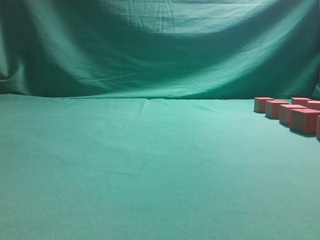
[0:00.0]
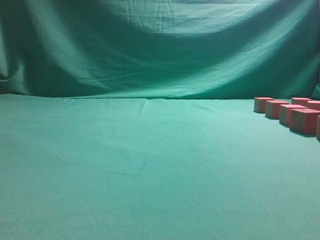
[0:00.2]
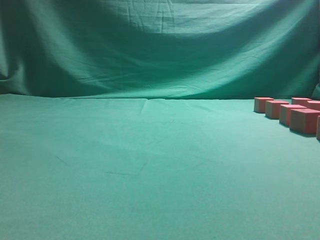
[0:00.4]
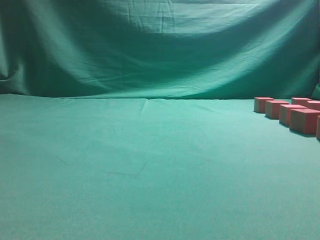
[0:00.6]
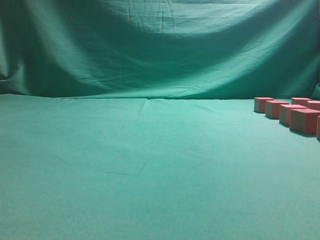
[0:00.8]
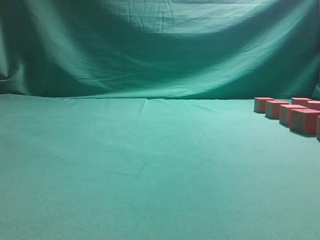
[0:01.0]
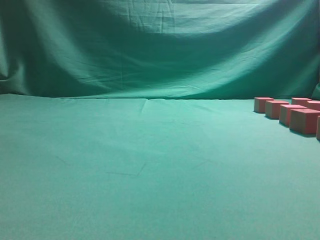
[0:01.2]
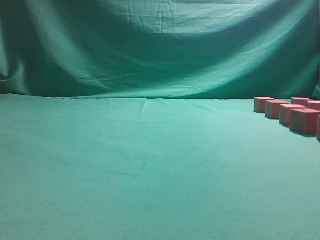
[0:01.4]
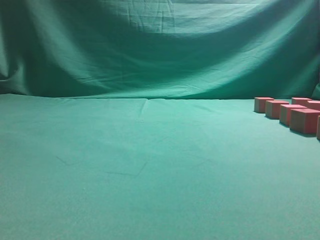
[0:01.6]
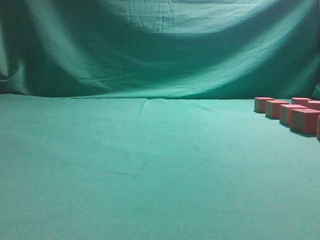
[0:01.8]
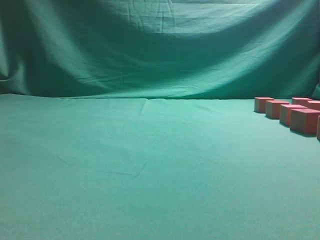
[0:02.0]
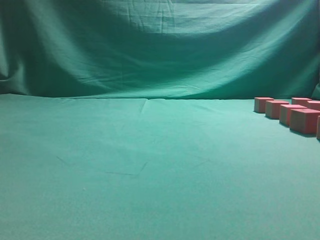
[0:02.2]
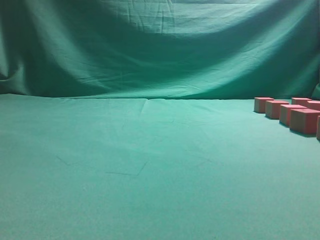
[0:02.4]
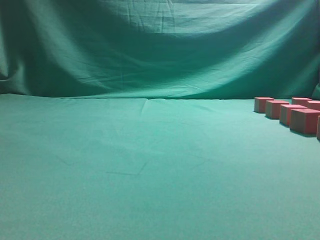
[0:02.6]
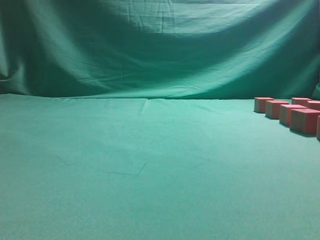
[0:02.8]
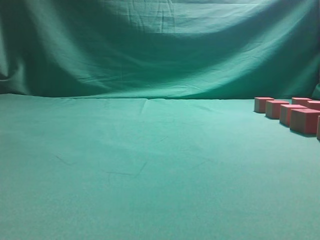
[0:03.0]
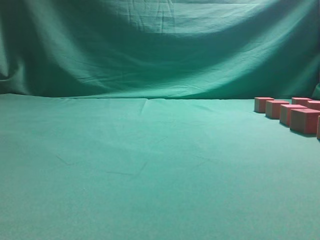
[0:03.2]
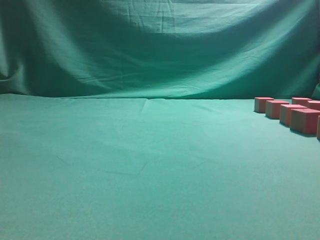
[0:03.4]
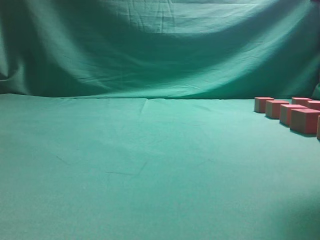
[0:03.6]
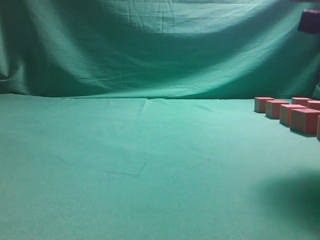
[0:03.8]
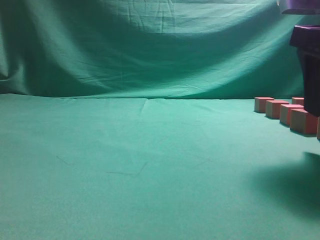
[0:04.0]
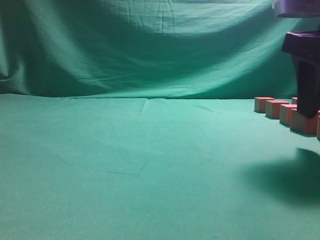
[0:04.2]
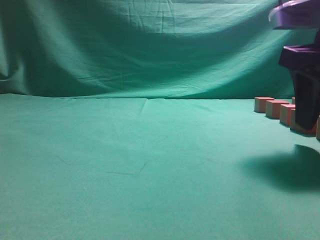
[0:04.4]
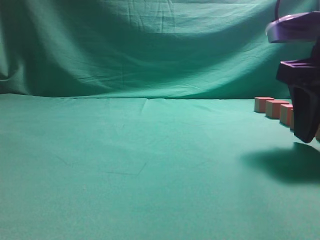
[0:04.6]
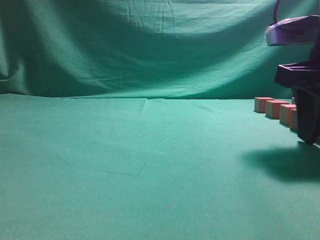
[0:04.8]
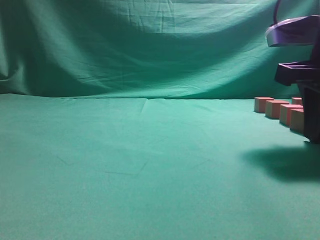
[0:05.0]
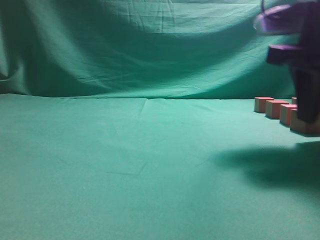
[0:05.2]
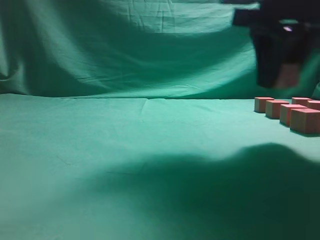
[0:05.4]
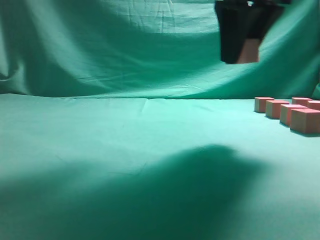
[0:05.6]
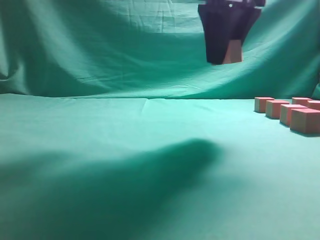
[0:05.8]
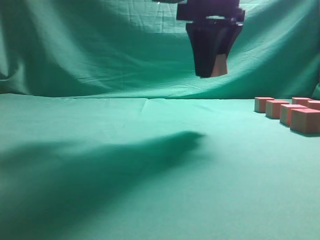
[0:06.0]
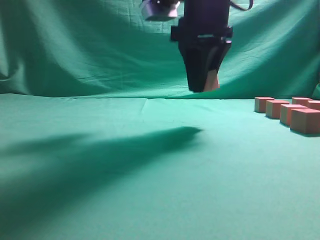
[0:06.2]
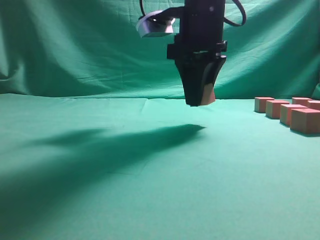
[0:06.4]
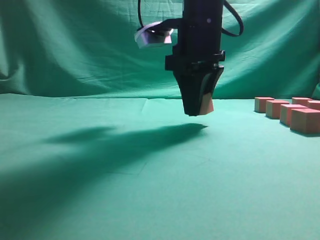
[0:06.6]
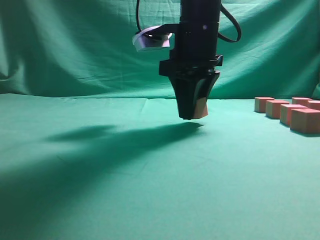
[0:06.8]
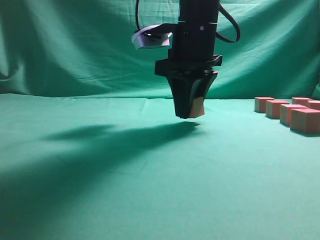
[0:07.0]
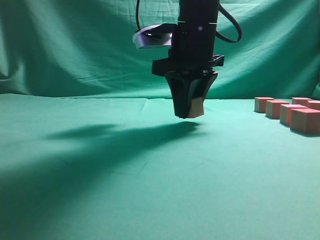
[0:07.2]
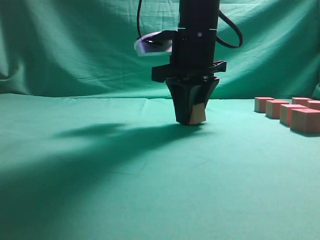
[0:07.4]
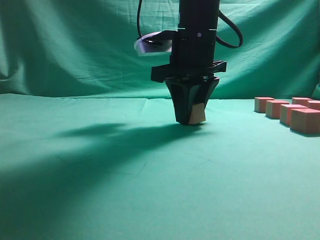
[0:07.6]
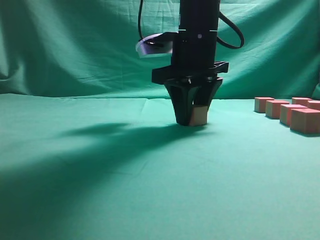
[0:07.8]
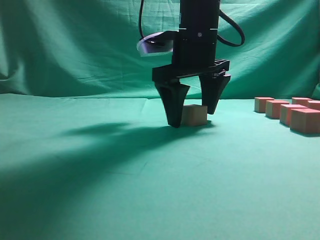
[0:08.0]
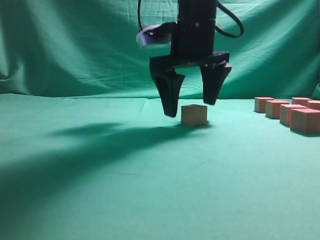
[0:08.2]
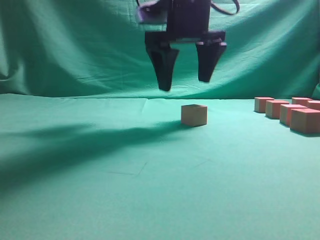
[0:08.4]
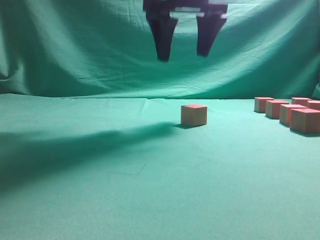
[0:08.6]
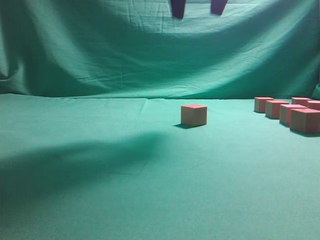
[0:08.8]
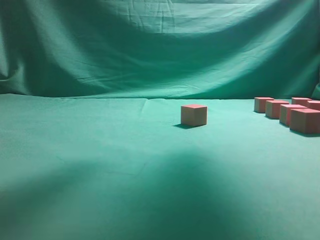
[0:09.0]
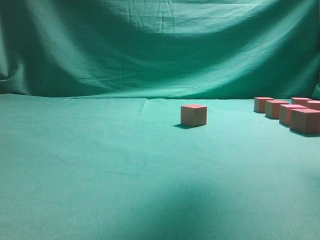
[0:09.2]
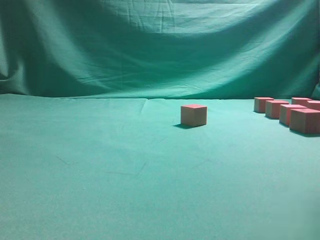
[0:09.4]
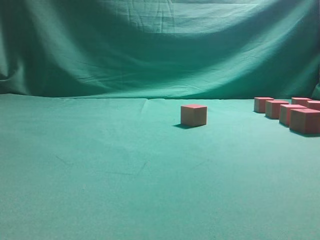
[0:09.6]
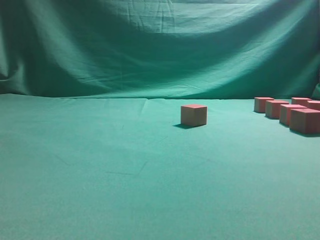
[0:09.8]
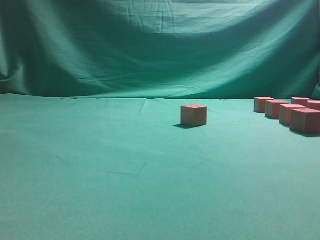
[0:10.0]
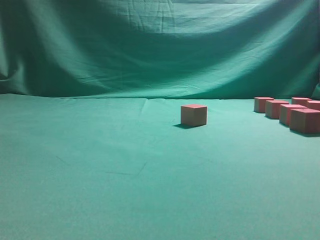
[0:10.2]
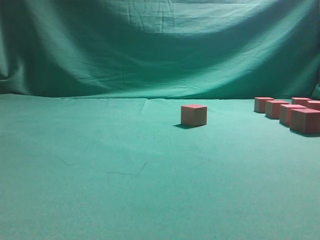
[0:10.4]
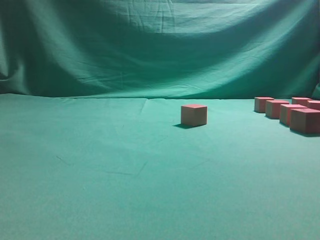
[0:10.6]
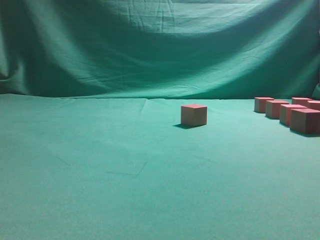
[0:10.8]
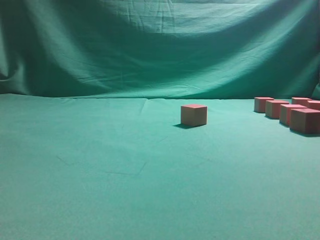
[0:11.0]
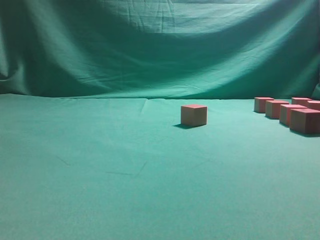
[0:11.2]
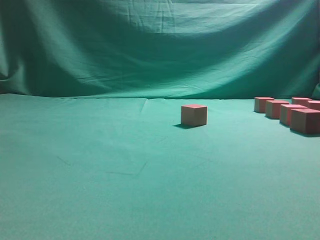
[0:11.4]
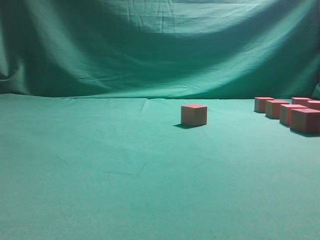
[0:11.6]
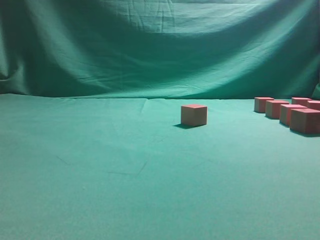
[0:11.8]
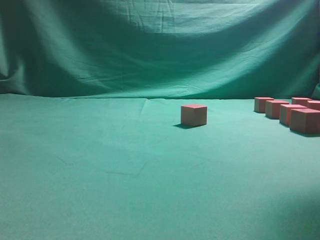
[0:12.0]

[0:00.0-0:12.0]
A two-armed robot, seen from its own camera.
Task of the whole recording: pick up the multiple cubes in two columns one by one and place them in another position on the table.
Step, 0.0 to 5.2 s: Pick up the block on the table.
Step, 5.4 to 8.6 s: Place the block at the correct position to assemble the letter S.
3.0 to 4.4 s: The right gripper heads forward and downward, covering some 15 cm, and opens its fingers.
4.4 to 6.0 s: The right gripper goes approximately 15 cm to the left, forward and upward.
6.0 to 7.6 s: The right gripper is displaced downward by roughly 5 cm.
7.6 to 9.0 s: The right gripper goes roughly 20 cm upward, and opens its fingers.
9.0 to 10.4 s: The right gripper moves downward, to the right and backward, some 25 cm.
10.4 to 12.0 s: The right gripper heads upward, covering roughly 5 cm, and closes up.

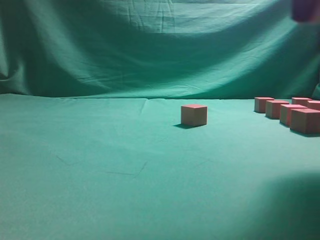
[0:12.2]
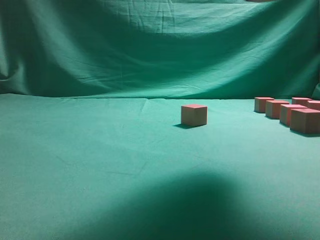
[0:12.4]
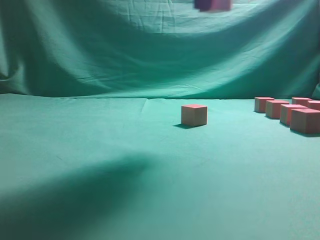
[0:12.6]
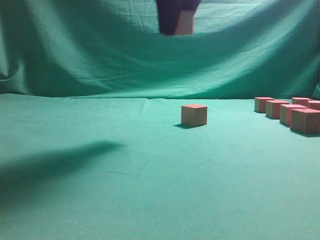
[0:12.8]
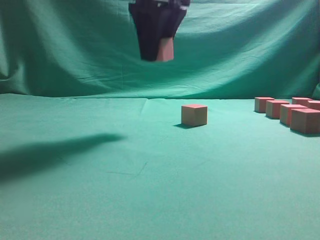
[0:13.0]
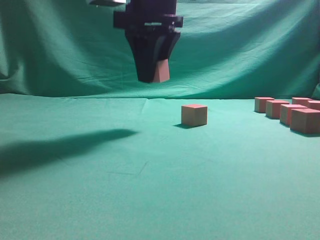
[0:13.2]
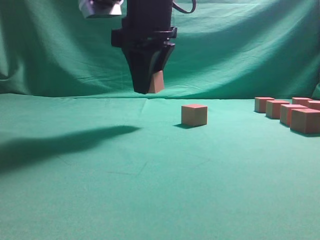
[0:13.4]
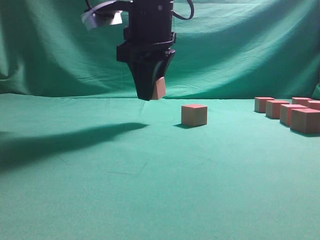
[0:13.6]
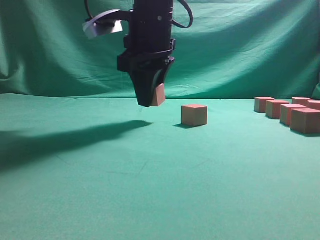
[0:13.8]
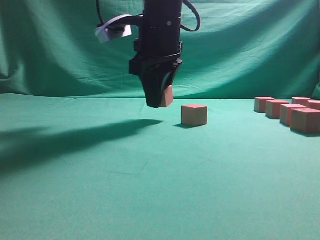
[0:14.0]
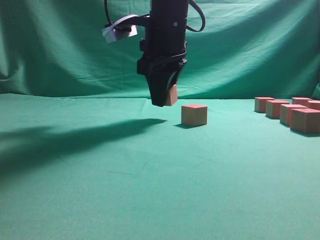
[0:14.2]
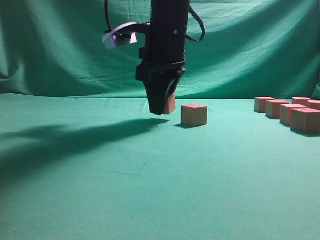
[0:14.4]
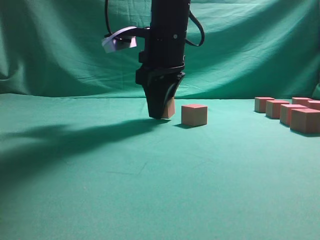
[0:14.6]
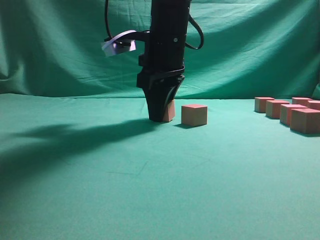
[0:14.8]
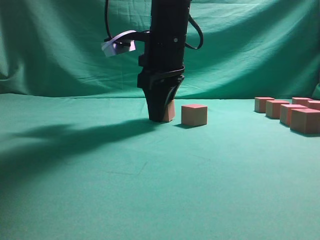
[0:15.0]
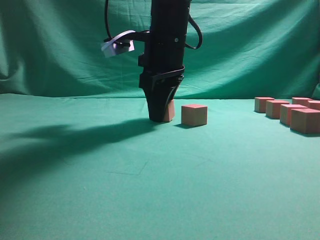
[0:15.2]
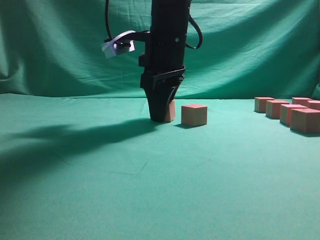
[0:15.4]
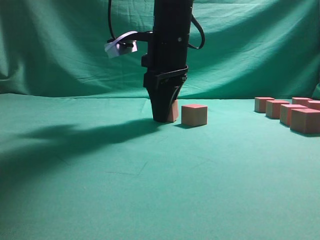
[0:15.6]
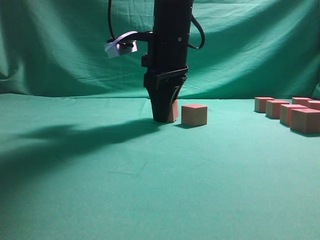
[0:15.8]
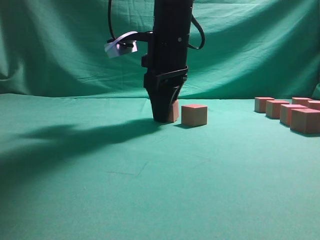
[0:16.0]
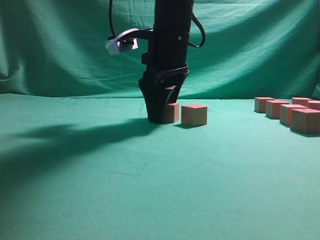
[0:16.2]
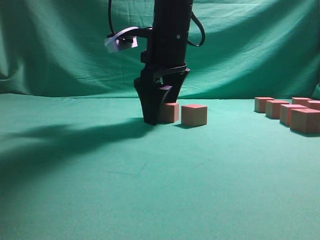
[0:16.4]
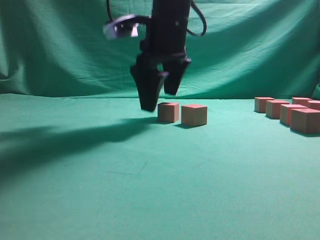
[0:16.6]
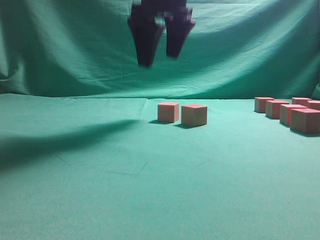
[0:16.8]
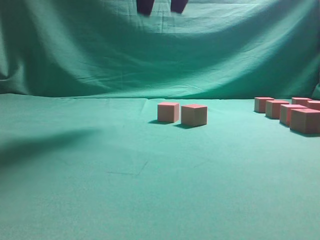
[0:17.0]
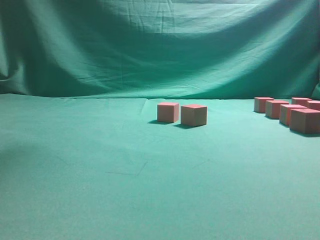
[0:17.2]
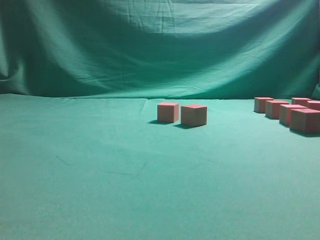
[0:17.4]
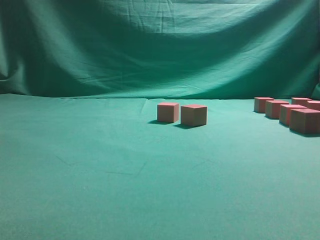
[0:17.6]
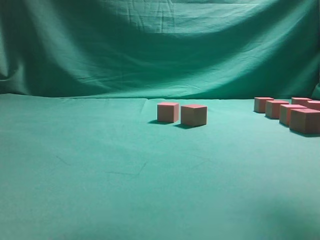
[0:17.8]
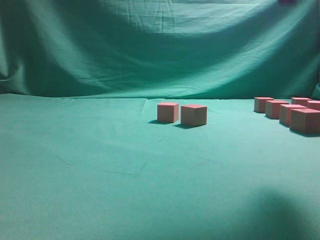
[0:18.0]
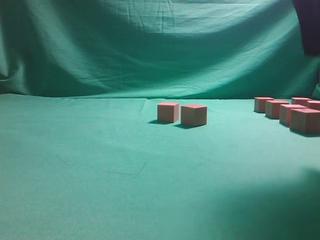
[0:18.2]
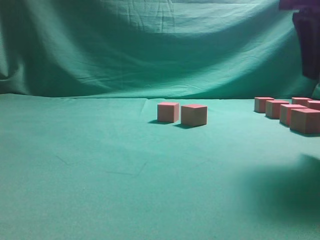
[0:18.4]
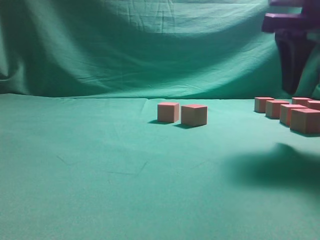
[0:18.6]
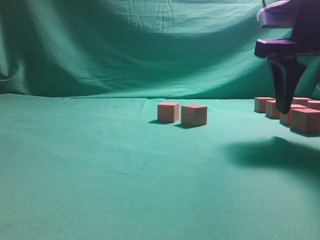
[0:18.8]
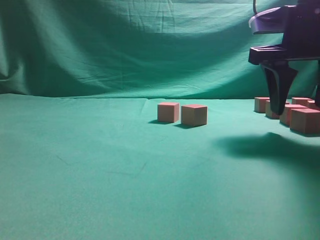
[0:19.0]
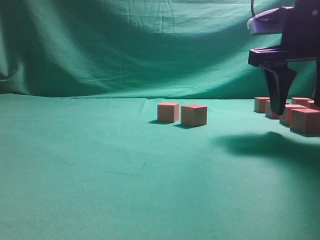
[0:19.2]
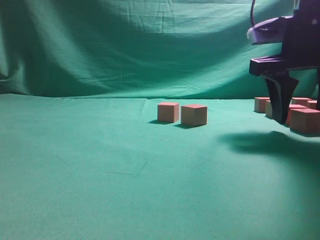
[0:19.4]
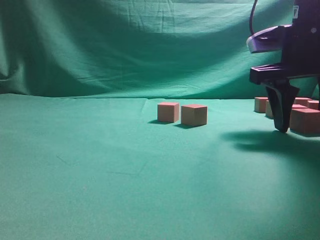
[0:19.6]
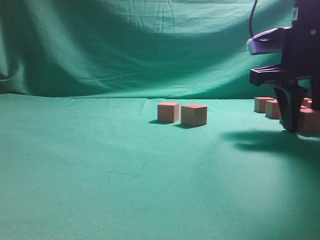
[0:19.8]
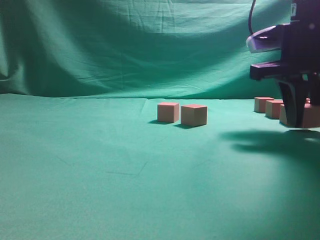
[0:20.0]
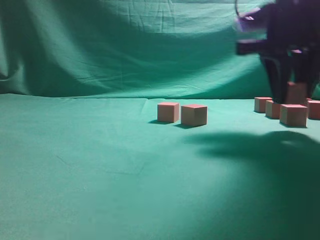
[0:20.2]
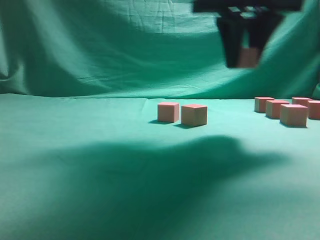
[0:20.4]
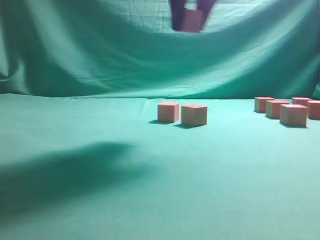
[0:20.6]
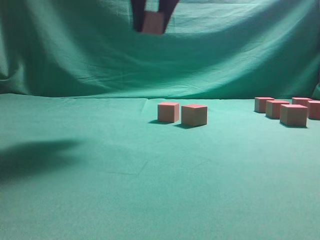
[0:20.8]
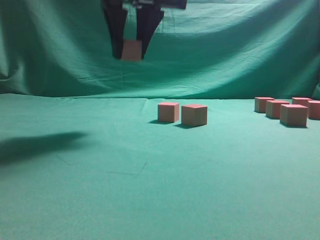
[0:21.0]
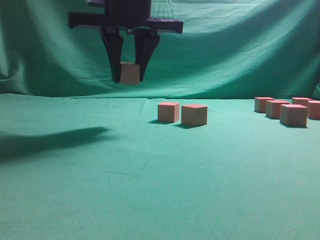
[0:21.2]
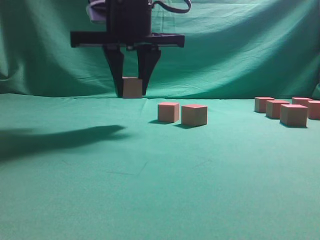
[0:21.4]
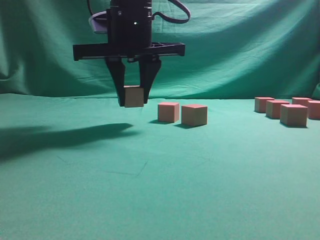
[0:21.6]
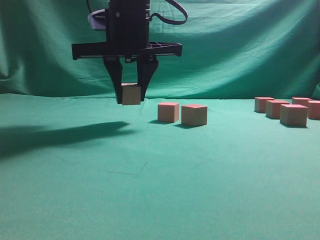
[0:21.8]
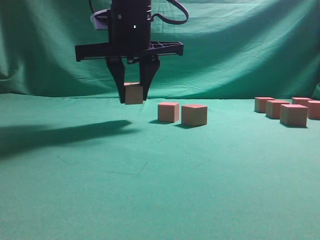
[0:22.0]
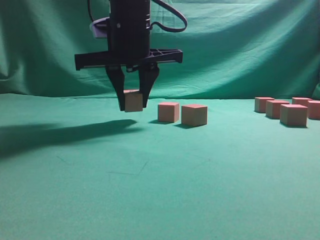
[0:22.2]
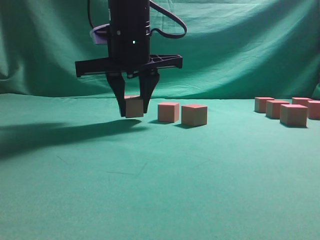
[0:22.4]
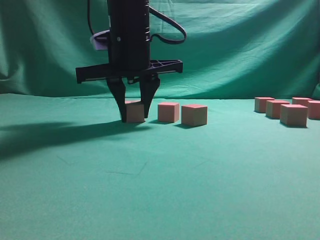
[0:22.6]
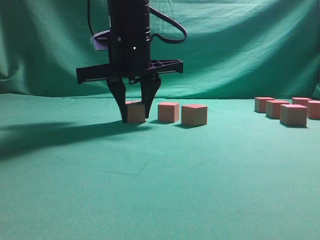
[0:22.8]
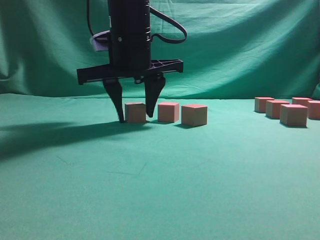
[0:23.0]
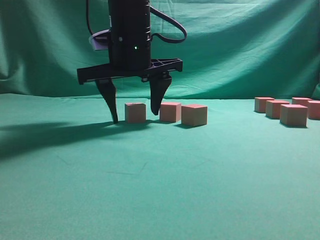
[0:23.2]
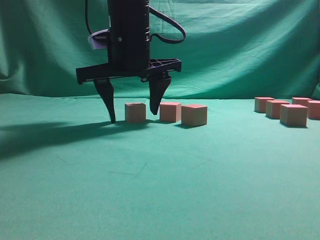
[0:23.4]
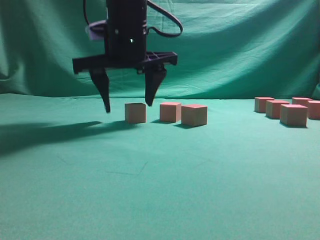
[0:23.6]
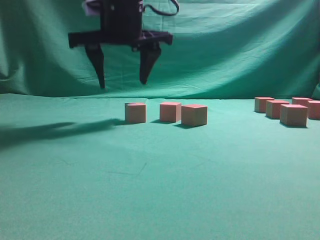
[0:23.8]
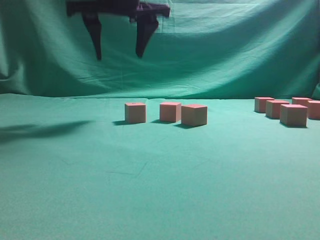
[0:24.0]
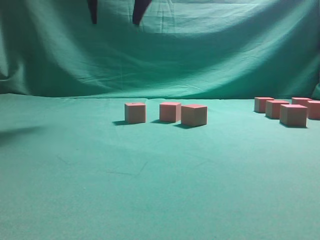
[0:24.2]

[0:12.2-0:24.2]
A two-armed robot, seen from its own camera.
Task of the whole recording: pick up the multiple cubes in two columns one by one and place them in another position on the table.
Step, 12.2 to 16.8 s: Place the block at the correct position to assemble the letter S.
Step, 17.2 to 20.0 s: Pick up the block on the table.
Step, 20.4 to 24.2 s: Place the block at the correct position to assemble the letter S.
12.2 to 13.8 s: The right gripper shifts approximately 25 cm to the left, forward and downward.
13.8 to 15.2 s: The grippers move only a little.
15.2 to 16.6 s: The right gripper opens its fingers.
16.6 to 18.2 s: The right gripper heads to the right and backward, covering roughly 25 cm, and travels upward and back again, roughly 25 cm each way.
18.2 to 19.8 s: The right gripper is displaced downward and forward by about 10 cm.
19.8 to 21.2 s: The right gripper goes some 25 cm to the left.
21.2 to 22.6 s: The right gripper heads downward, covering some 5 cm.
22.6 to 24.2 s: The right gripper is displaced upward by approximately 15 cm, and opens its fingers.
